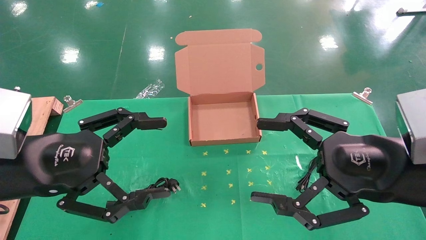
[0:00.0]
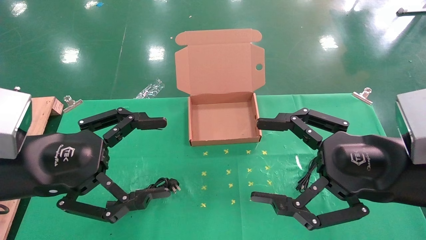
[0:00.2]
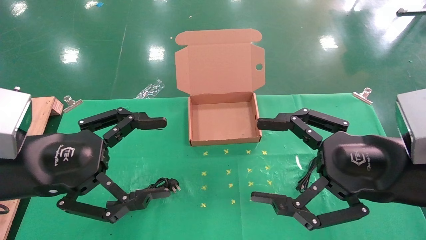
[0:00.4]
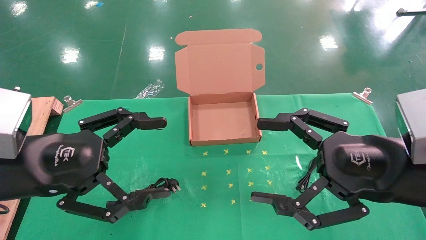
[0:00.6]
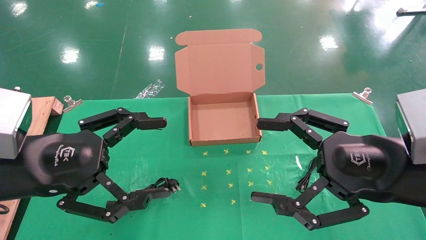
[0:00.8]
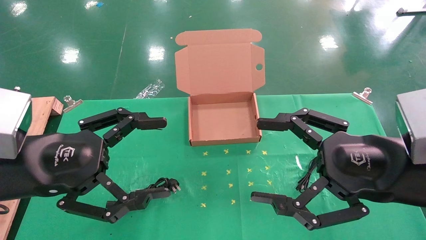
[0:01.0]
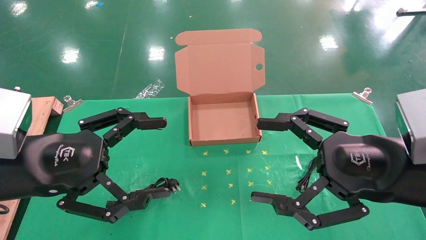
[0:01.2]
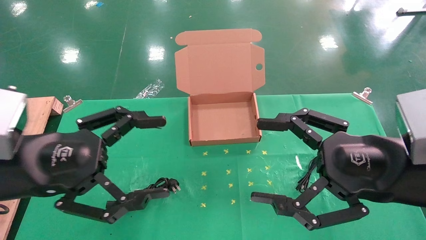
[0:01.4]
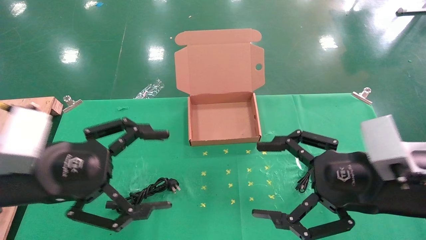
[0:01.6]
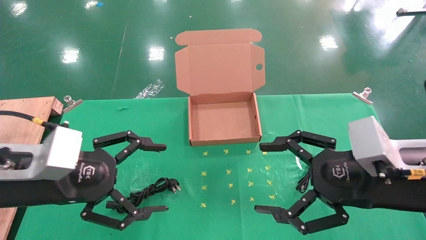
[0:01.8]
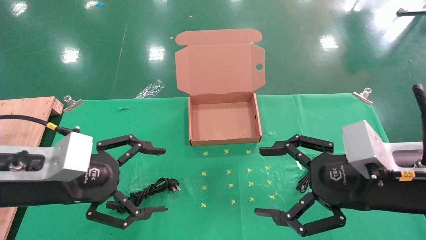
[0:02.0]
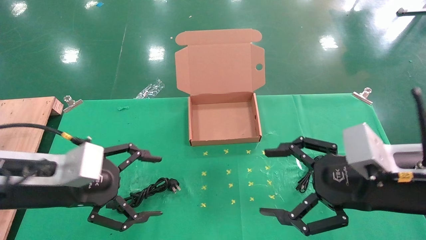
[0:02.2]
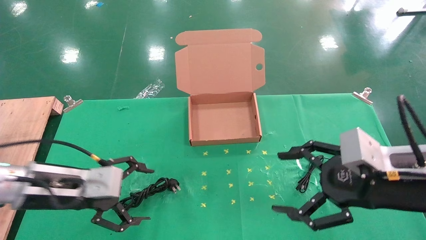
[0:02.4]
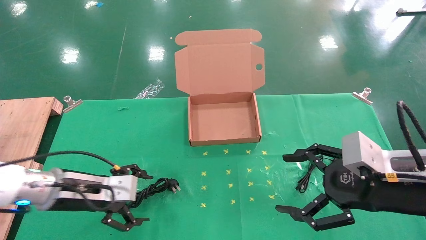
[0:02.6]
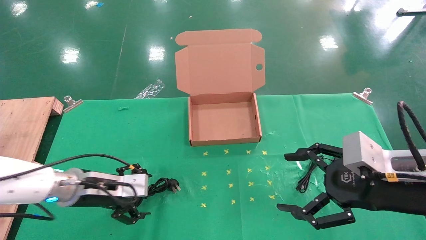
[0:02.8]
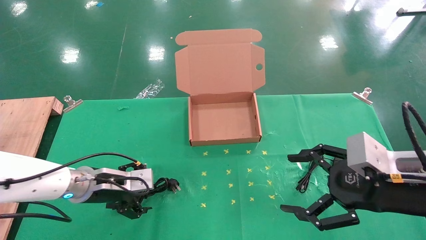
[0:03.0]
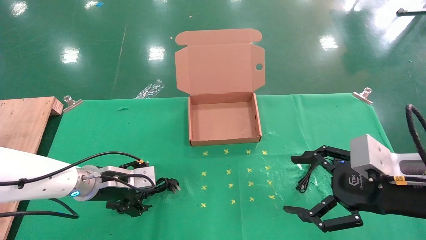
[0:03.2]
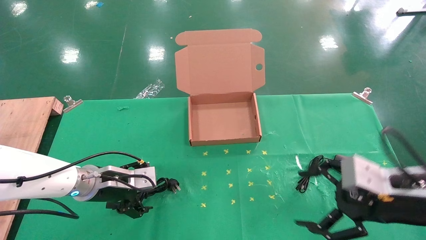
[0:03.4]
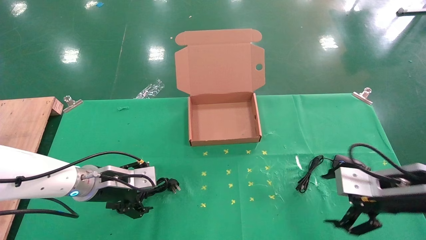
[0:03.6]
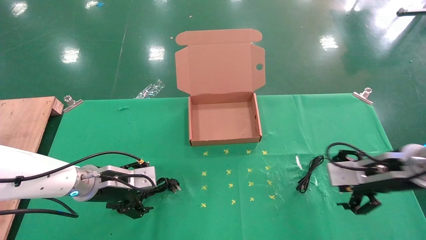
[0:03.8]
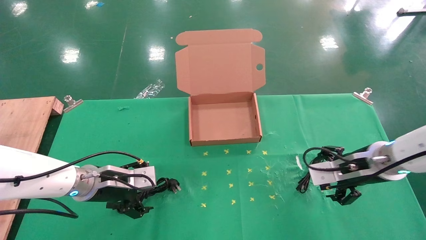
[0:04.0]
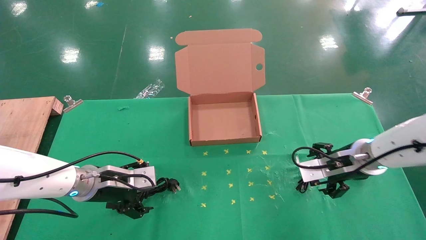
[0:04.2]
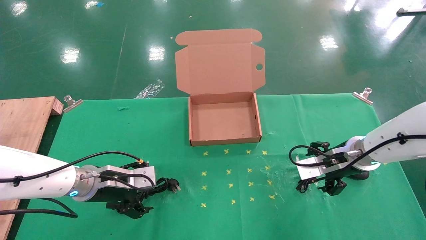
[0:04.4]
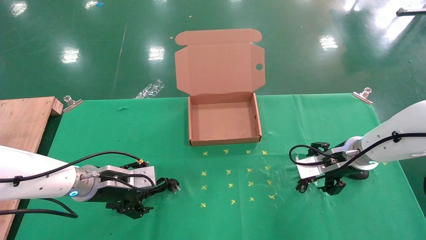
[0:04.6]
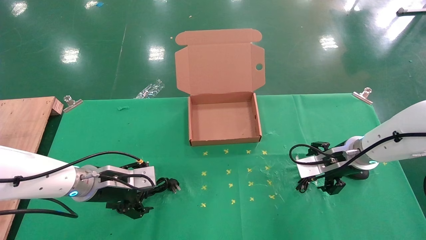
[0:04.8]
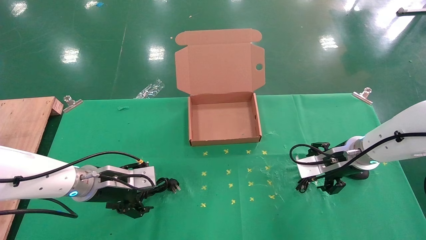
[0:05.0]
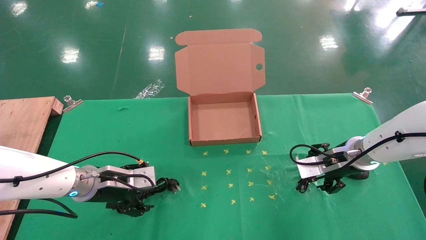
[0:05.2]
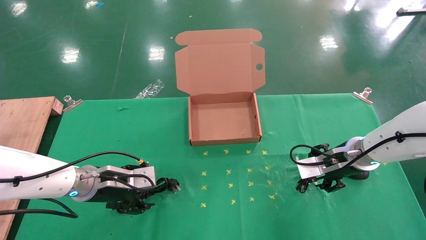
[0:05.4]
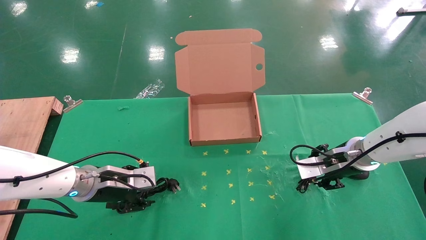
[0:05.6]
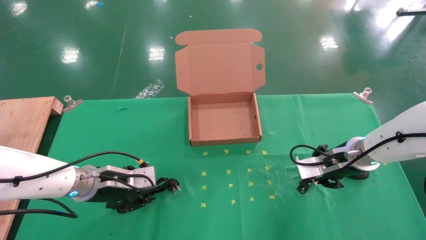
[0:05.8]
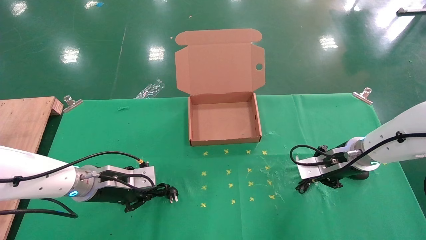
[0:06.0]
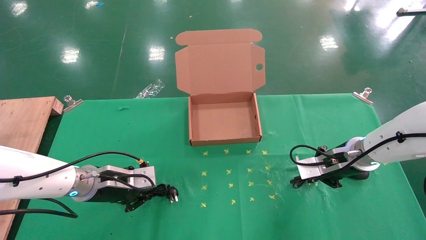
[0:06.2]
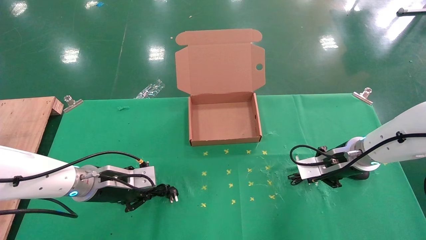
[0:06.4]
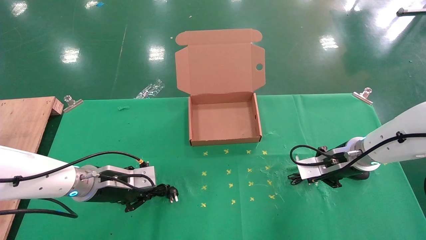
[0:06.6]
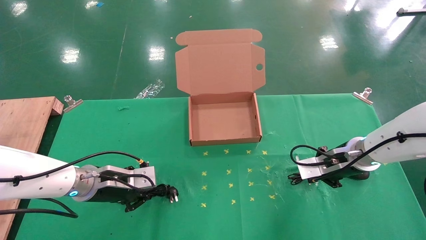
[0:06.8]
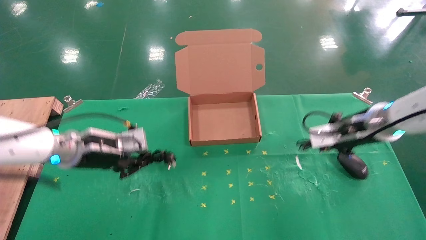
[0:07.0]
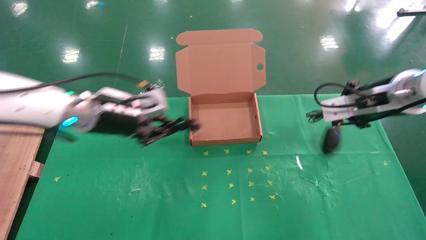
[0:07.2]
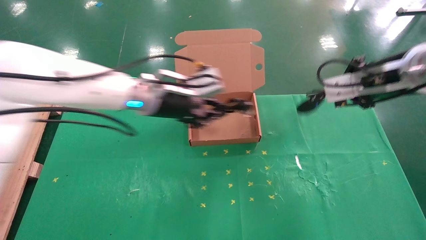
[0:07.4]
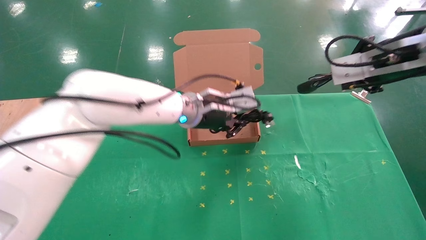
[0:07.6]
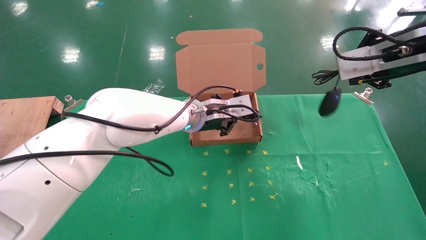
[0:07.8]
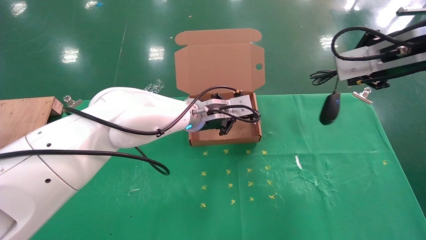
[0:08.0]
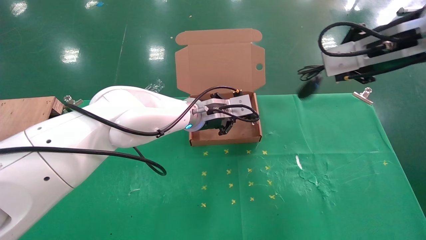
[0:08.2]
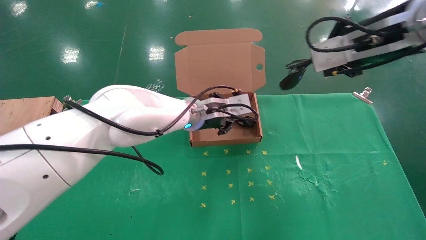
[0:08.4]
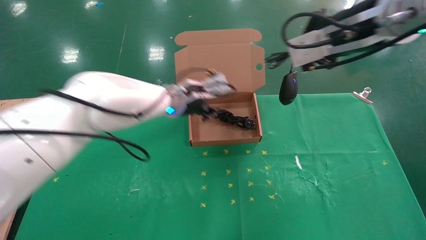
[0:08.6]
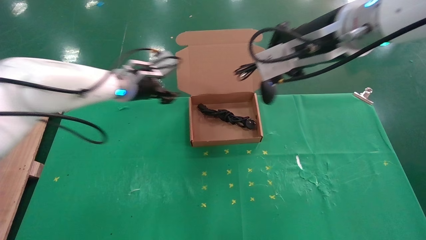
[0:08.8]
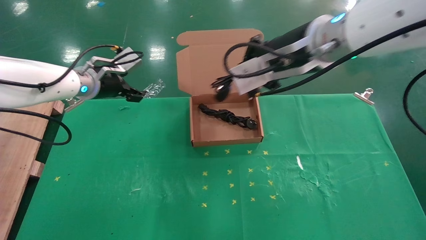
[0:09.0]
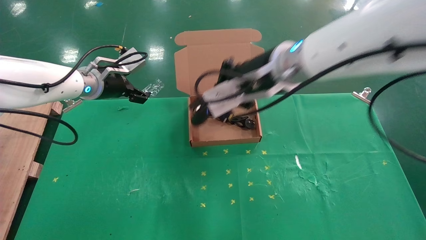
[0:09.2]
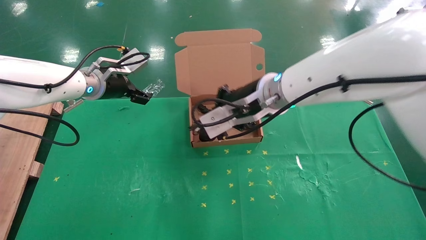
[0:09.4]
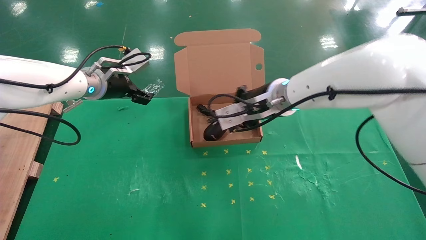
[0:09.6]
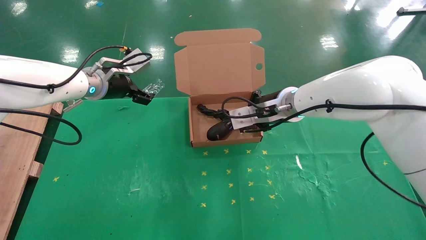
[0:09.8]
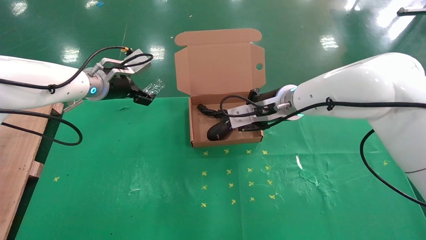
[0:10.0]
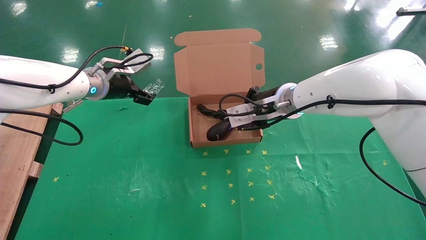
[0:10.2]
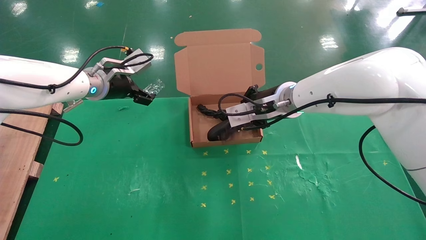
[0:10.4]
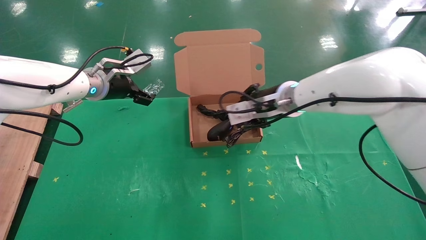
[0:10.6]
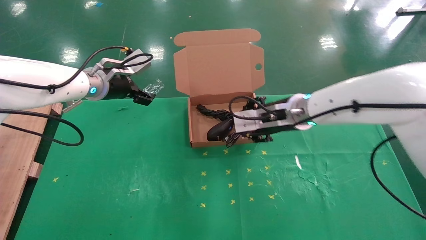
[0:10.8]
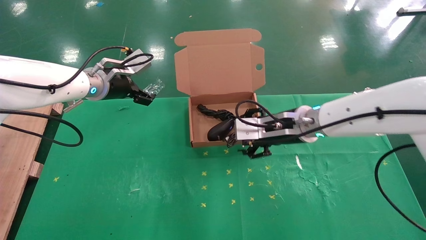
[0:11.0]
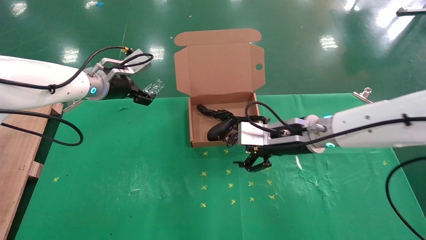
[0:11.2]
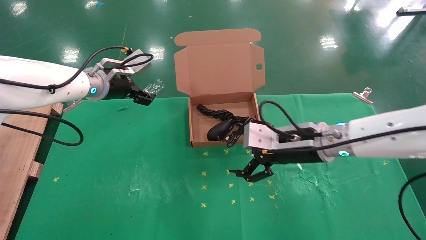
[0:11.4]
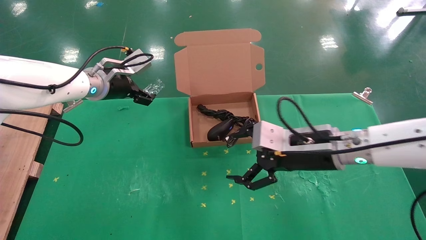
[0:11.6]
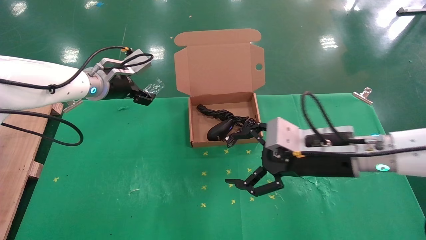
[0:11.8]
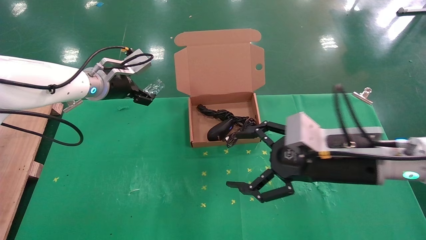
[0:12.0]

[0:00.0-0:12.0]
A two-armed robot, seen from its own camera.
Task of the whole recording: grasp data cable left put into box grasp mouse right put into box.
Step, 0:01.6 to 0:06.2: Simultaneously pick up the mouse and power cord from the accessory packaging area.
Step, 0:06.4 to 0:10.4: Place the mouse and power cord into the box.
0:01.6 to 0:03.0: The left gripper shifts about 20 cm downward and forward.
0:03.0 to 0:04.4: The right gripper shifts some 15 cm forward.
0:04.4 to 0:06.0: The left gripper closes its fingers. The right gripper closes its fingers.
0:06.0 to 0:07.6: The right gripper is displaced upward by roughly 20 cm. The left gripper moves to the right and upward, some 25 cm.
0:07.6 to 0:09.0: The grippers both shift to the left by about 15 cm. The left gripper opens its fingers.
0:09.0 to 0:10.4: The right gripper goes approximately 15 cm downward and forward, while the left gripper opens.
0:10.4 to 0:12.0: The right gripper moves backward and to the right, approximately 20 cm, and opens its fingers.

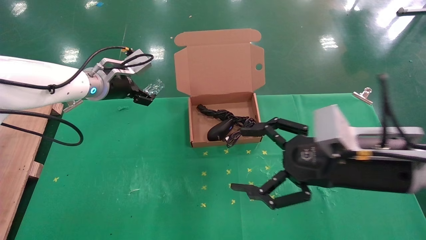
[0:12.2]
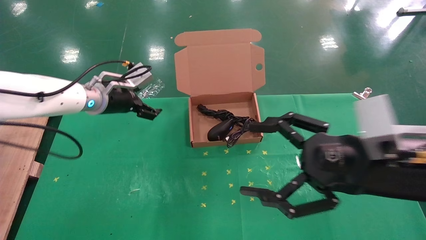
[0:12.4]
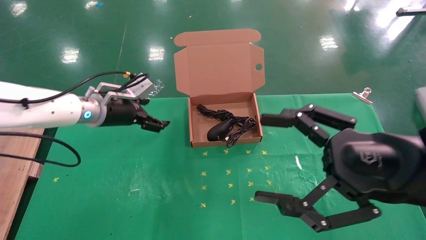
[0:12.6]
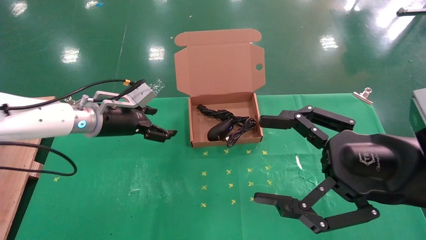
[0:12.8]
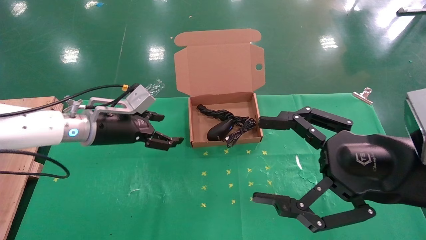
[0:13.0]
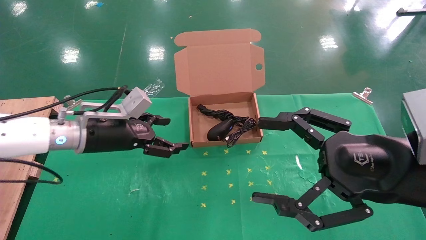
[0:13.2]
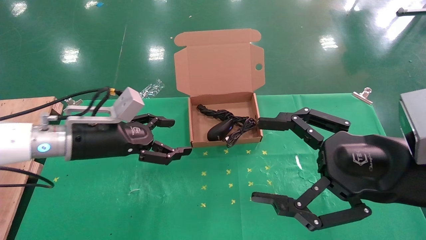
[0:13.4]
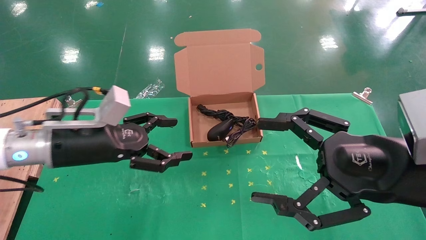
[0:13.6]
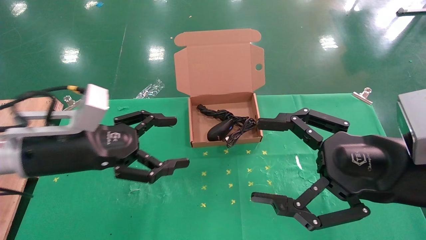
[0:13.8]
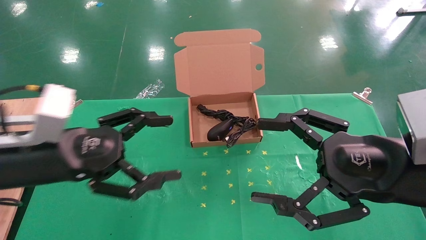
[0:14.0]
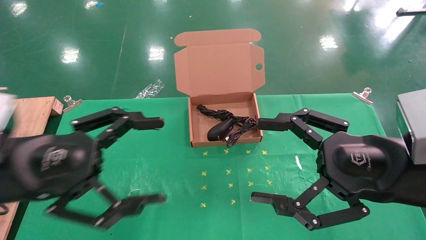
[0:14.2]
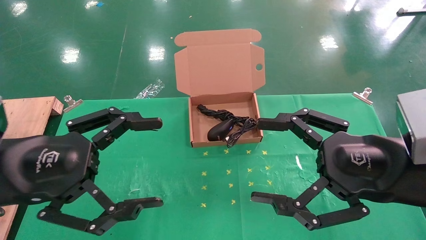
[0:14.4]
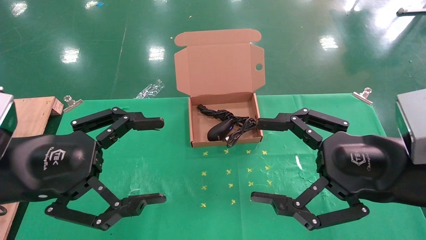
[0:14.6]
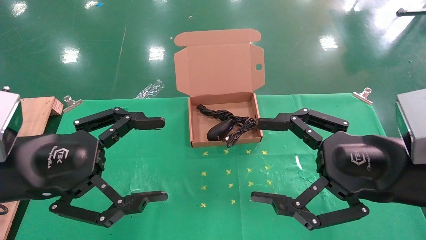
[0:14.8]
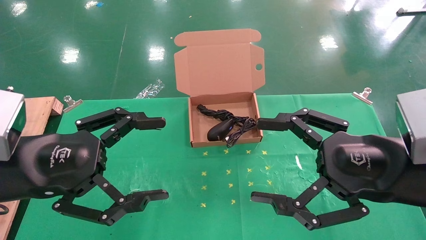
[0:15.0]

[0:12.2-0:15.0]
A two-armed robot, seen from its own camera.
Task of the whole recording: grasp data cable left put into box grasp mouse right put into box.
0:12.2 to 0:13.6: The right gripper changes place by some 5 cm. The left gripper is displaced backward by some 15 cm.
0:13.6 to 0:15.0: The left gripper is displaced backward by some 10 cm.
